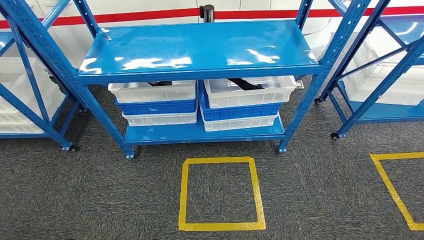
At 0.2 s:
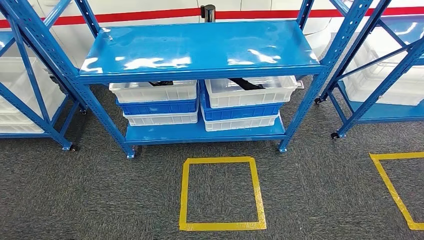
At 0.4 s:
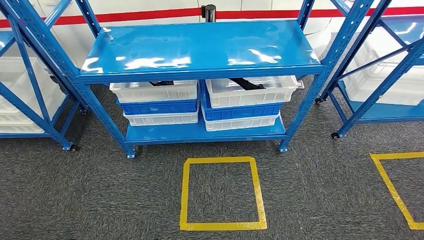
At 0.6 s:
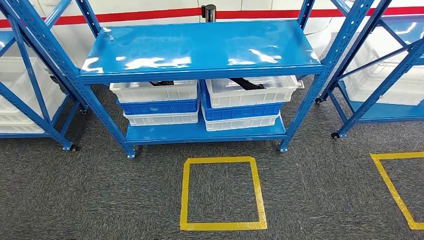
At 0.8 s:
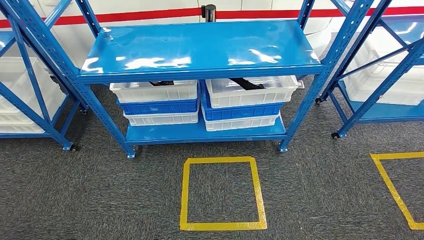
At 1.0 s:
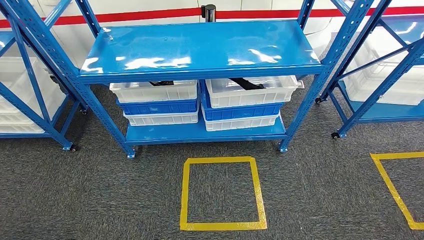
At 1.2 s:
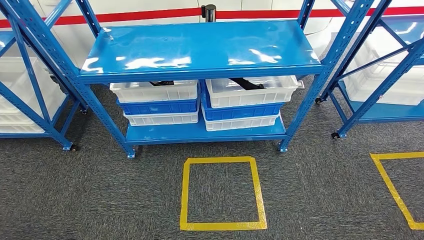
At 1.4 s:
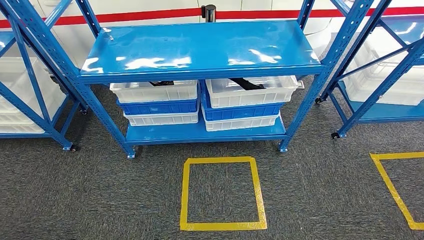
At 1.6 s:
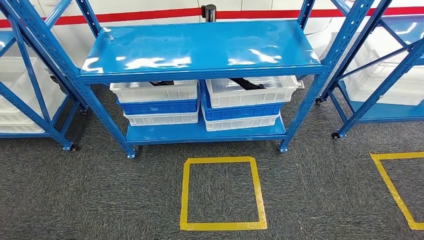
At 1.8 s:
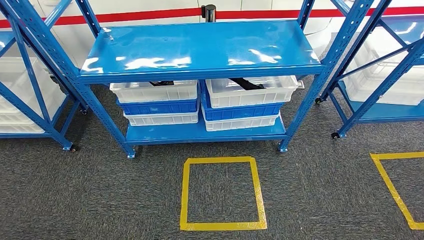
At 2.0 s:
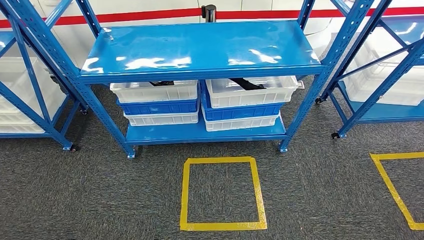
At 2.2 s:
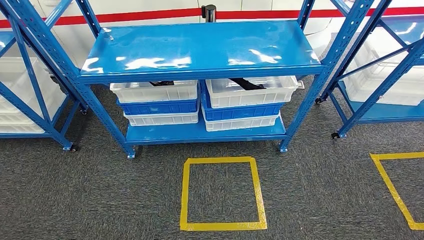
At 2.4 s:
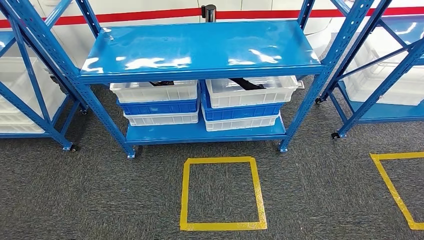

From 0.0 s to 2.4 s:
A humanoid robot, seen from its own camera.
Step, from 0.0 s to 2.4 s: Return to the initial position at the shelf.
From 0.0 s to 1.2 s: The hands move only a little.
